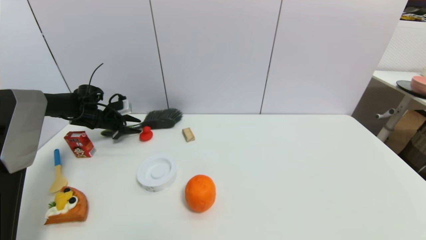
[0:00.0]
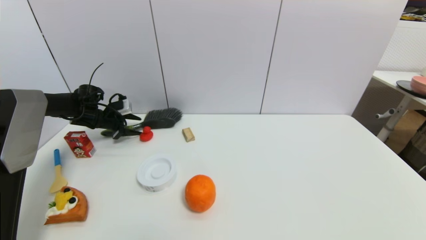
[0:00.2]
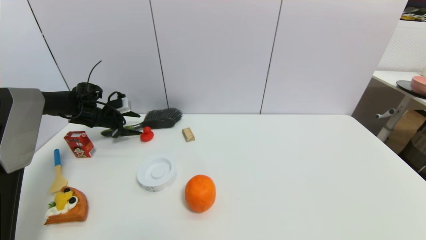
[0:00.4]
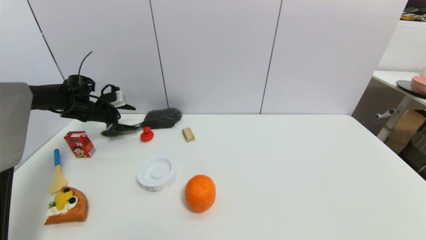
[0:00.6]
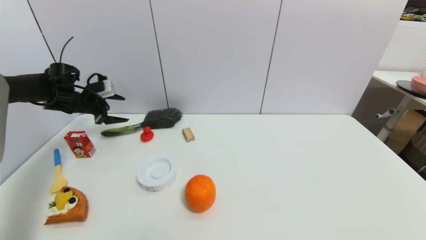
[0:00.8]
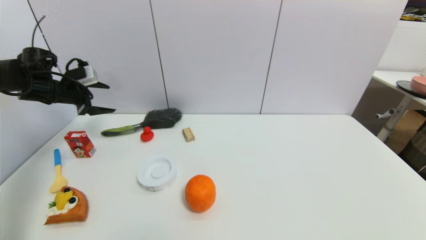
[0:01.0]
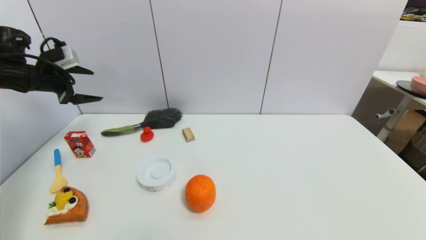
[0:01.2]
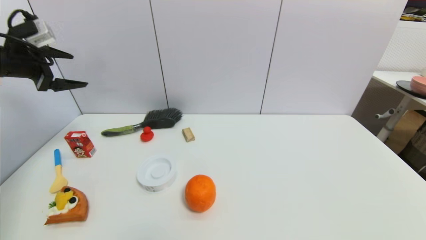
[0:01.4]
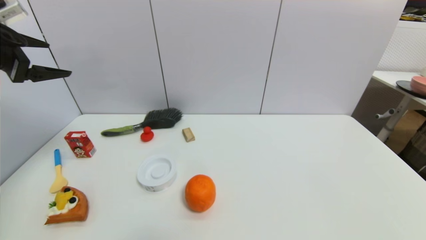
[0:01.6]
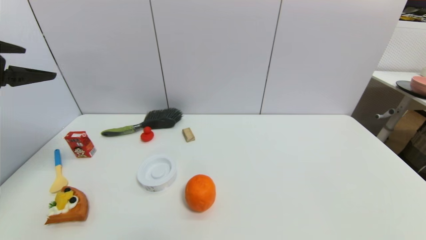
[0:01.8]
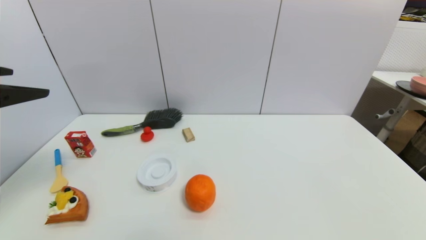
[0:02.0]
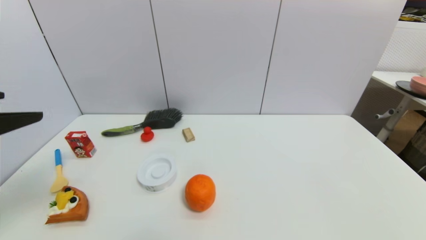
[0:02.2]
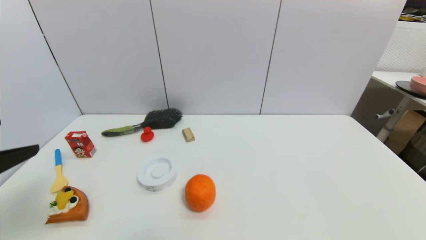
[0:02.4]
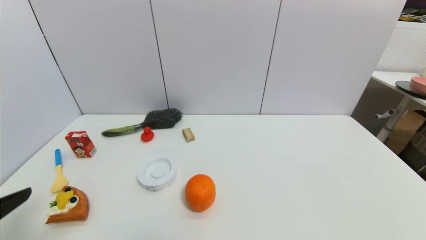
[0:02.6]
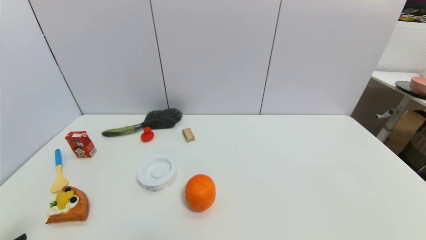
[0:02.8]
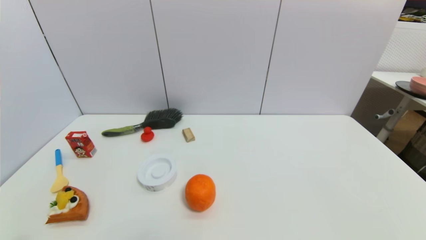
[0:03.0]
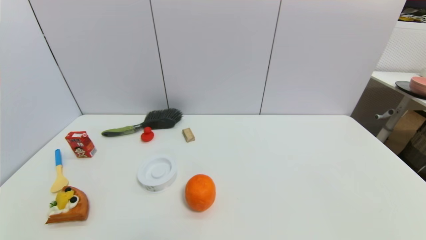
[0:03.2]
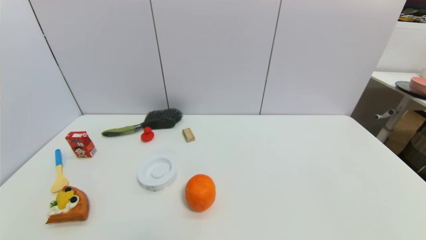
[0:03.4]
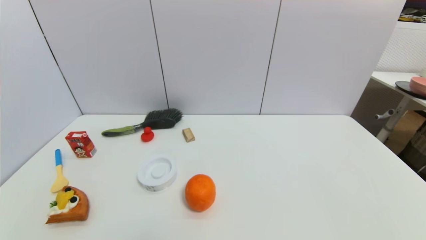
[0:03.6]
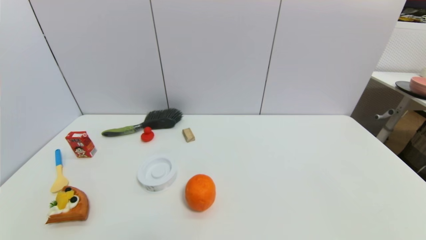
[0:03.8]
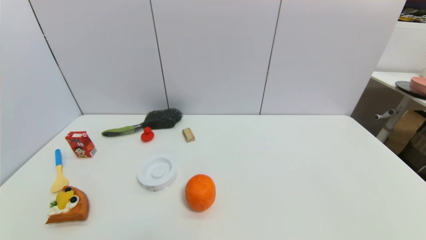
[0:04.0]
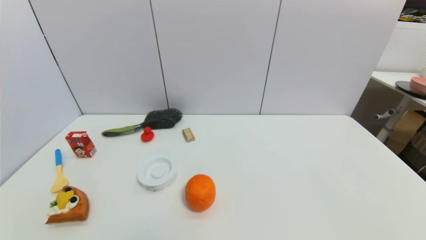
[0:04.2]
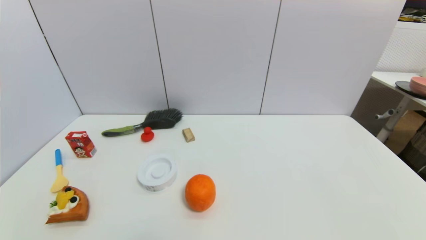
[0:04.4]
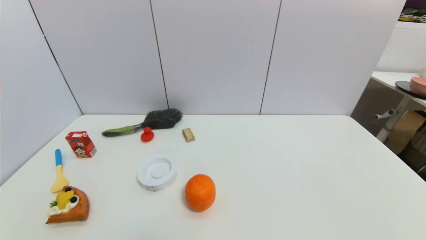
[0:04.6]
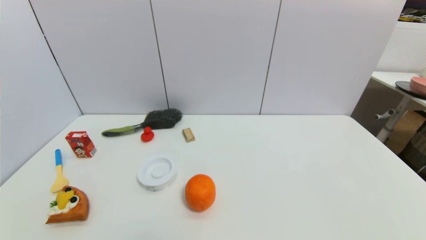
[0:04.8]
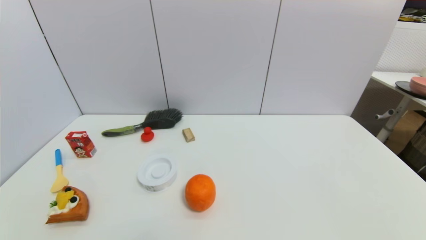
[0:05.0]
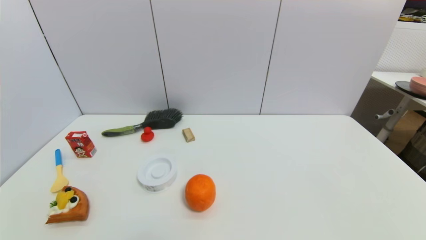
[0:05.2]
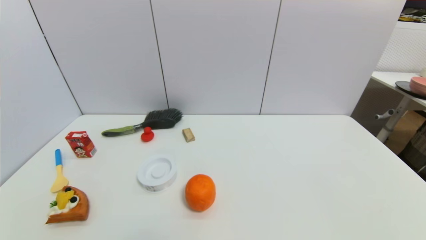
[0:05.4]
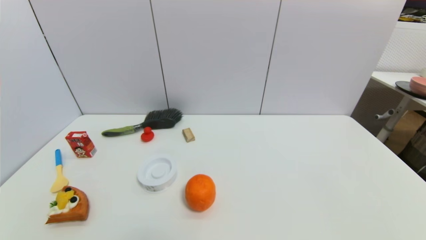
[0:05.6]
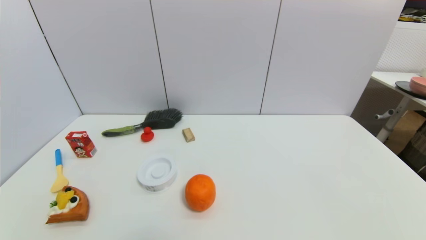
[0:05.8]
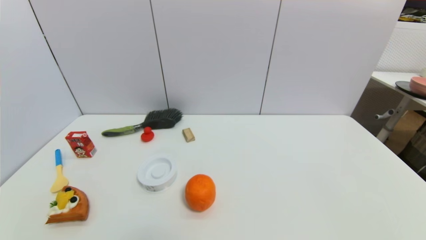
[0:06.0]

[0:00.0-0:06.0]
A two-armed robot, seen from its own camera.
Task of the whole recording: put the brush in the designated position.
0:00.0 to 0:01.6: The left gripper travels upward and backward by approximately 30 cm, and opens up.
0:01.6 to 0:03.0: The left gripper travels backward and downward by roughly 35 cm.
0:04.4 to 0:06.0: Neither gripper changes place.
